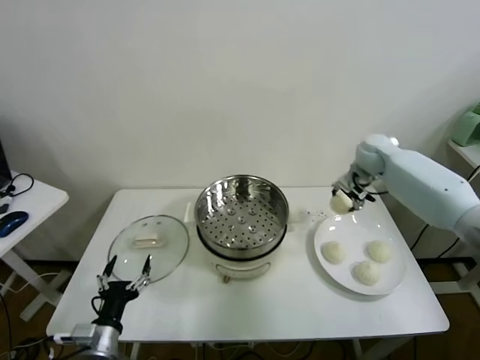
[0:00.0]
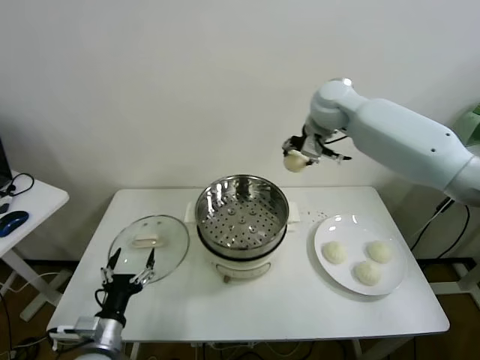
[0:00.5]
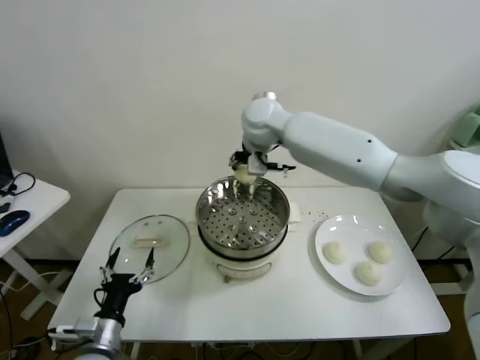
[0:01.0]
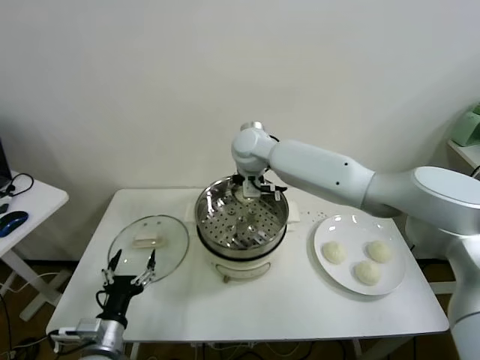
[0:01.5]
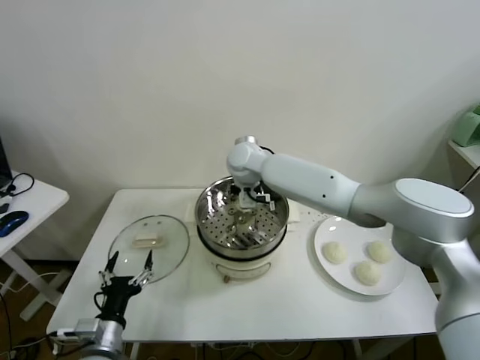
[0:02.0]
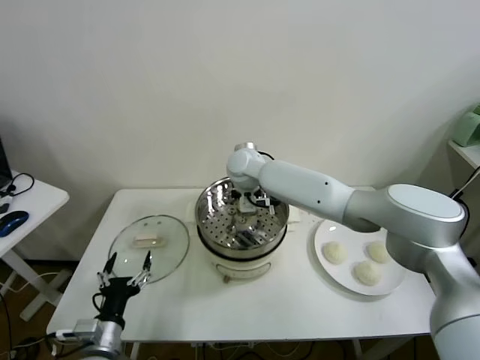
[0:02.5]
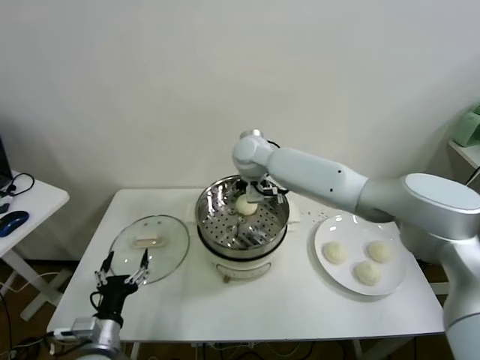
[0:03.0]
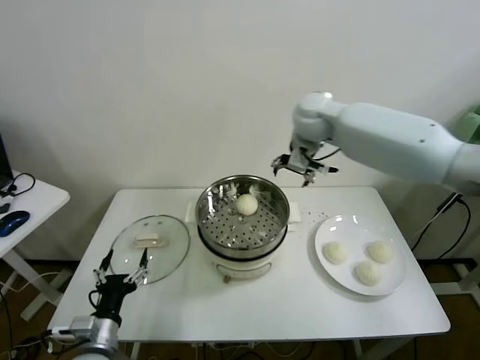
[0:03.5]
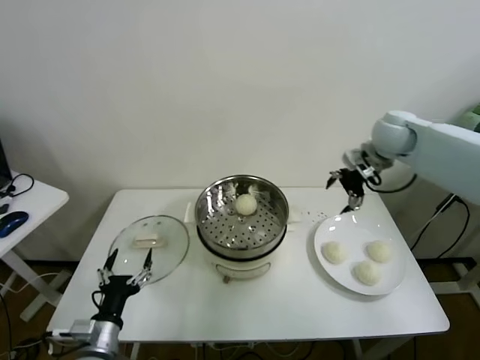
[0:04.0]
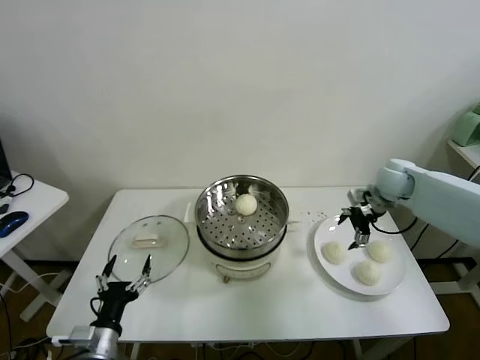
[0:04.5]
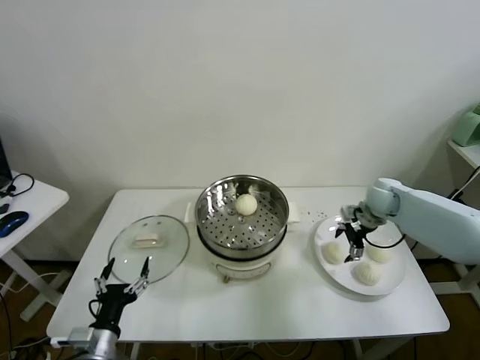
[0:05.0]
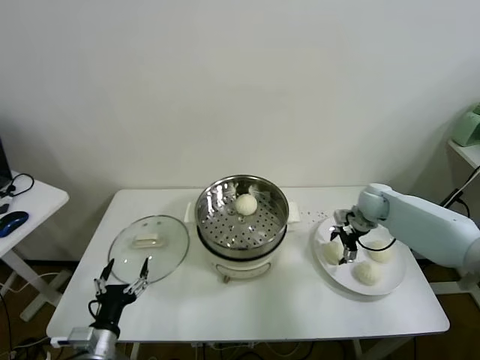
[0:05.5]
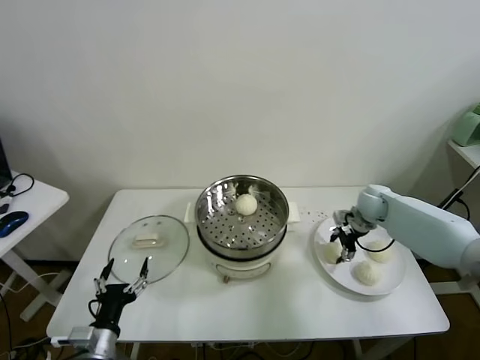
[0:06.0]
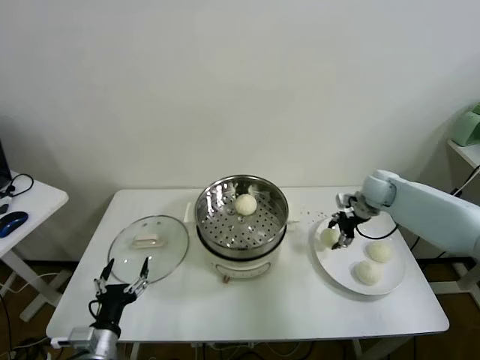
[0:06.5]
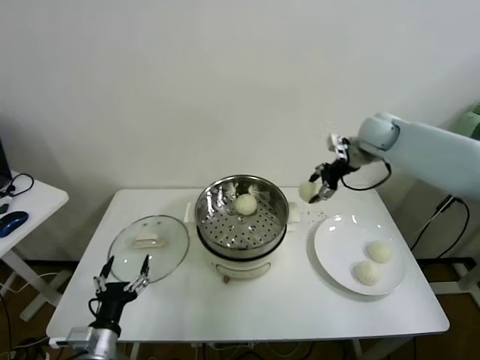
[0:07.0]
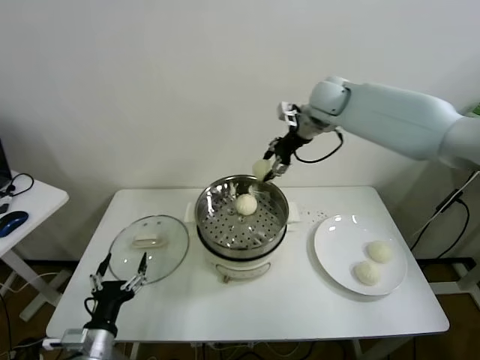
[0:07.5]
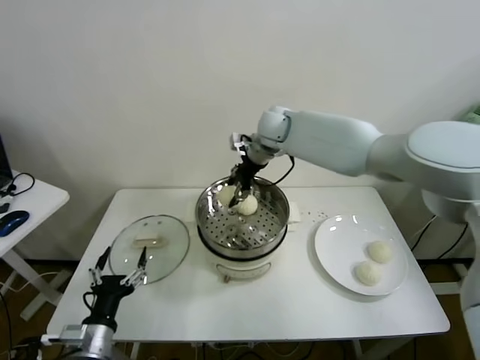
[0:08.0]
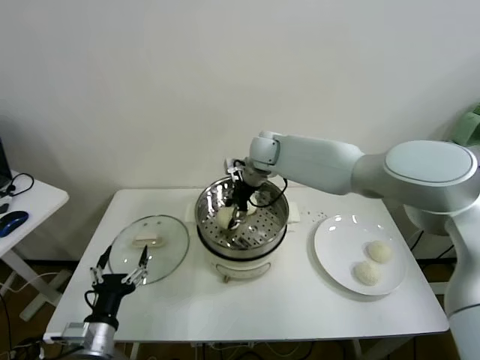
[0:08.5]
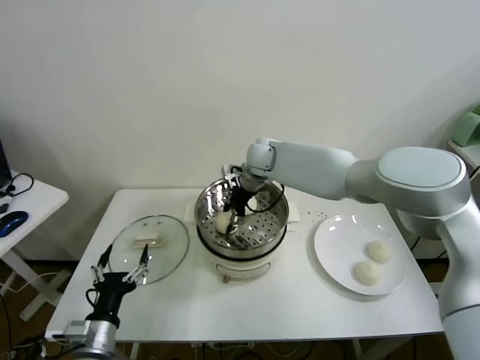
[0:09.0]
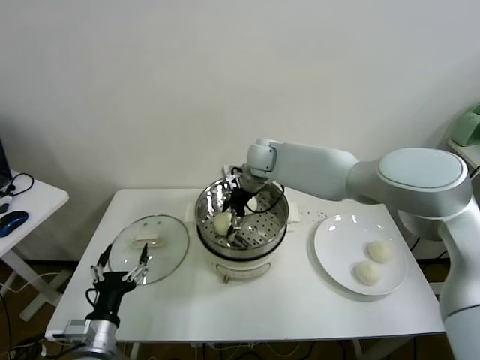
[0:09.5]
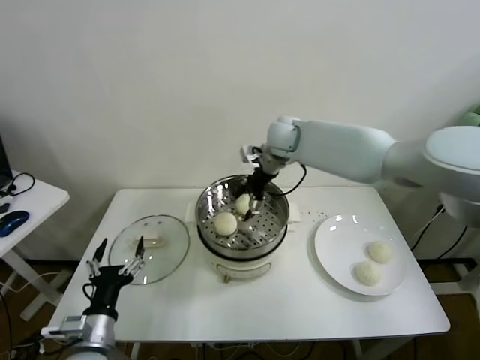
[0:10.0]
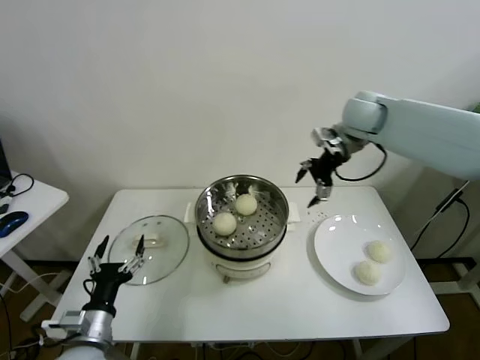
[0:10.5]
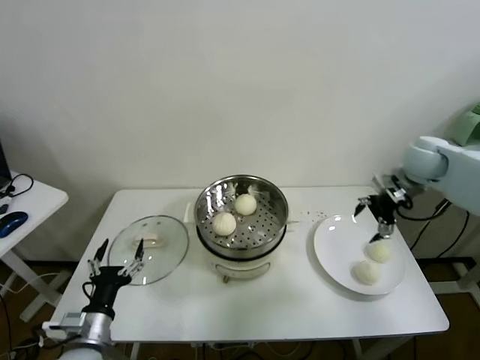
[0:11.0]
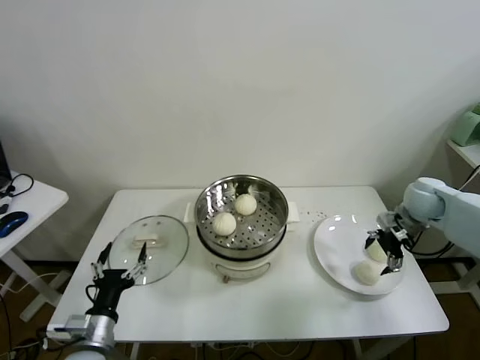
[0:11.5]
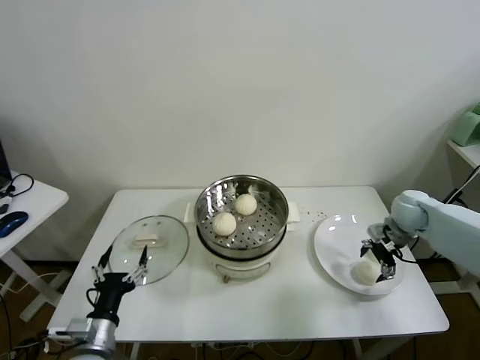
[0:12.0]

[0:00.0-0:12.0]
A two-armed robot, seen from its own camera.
Task of the whole recording: take steamed baozi put them in steamer.
Step, 0:00.0 to 0:02.5: Place the baozi on the steamer with right gripper.
Step, 0:03.0 to 0:05.5: Grasp the baozi in the plate with right gripper.
Step, 0:06.5 to 0:09.5: Place the baozi on the steamer with right gripper.
0:00.0 to 0:02.0: The right gripper shifts approximately 30 cm to the left.
0:02.0 to 0:04.0: The right gripper goes approximately 35 cm to the right, and opens.
0:04.0 to 0:06.0: The right gripper goes roughly 20 cm downward, and closes its fingers.
0:06.0 to 0:08.0: The right gripper goes roughly 35 cm to the left and upward.
0:08.0 to 0:10.0: The right gripper reaches approximately 5 cm downward, then returns, and opens.
0:10.0 to 0:12.0: The right gripper shifts roughly 35 cm to the right and downward.

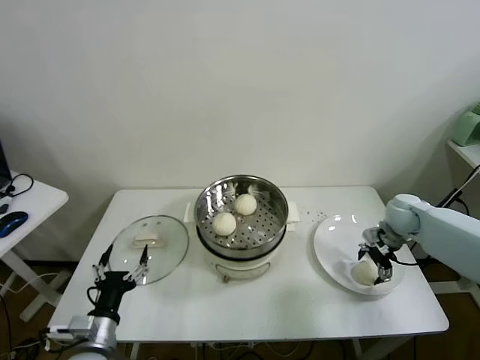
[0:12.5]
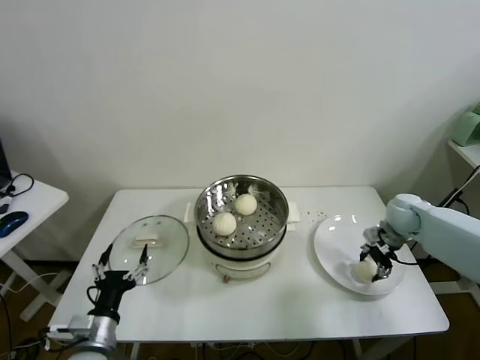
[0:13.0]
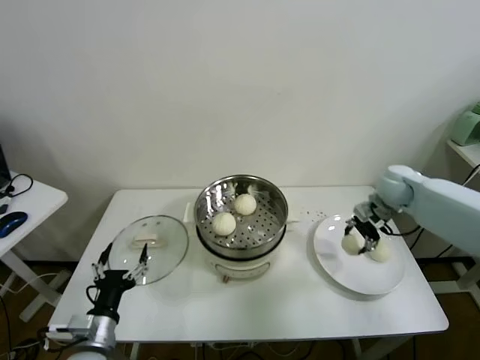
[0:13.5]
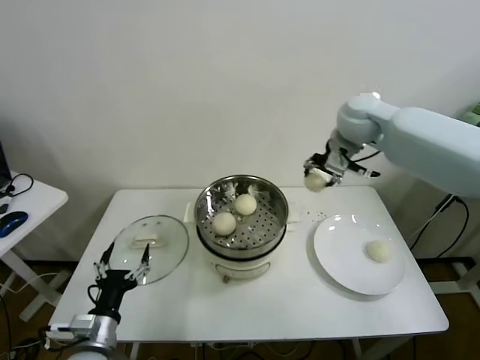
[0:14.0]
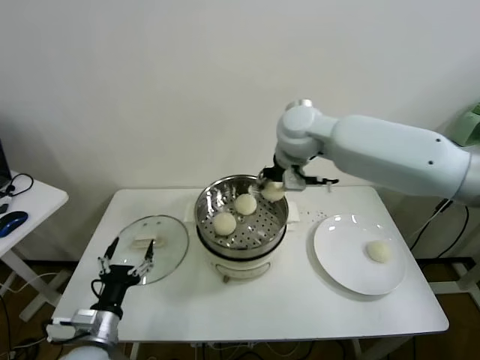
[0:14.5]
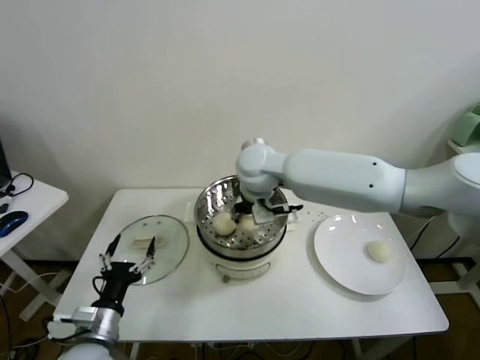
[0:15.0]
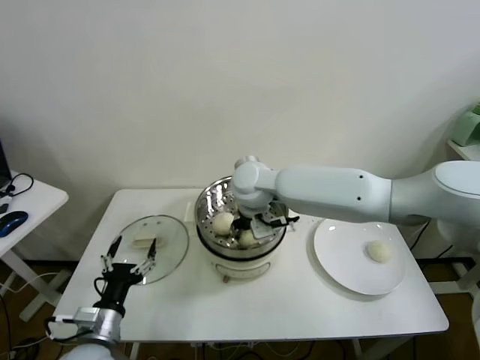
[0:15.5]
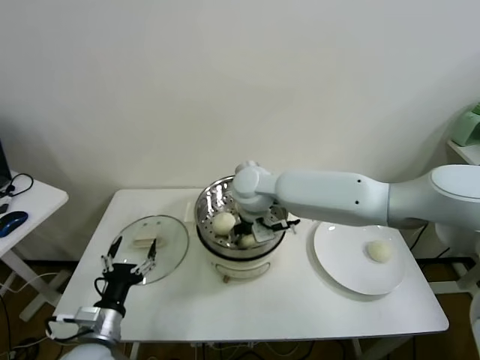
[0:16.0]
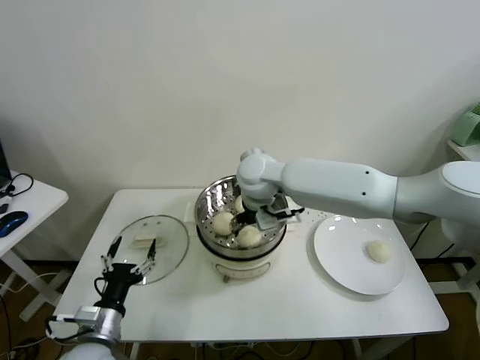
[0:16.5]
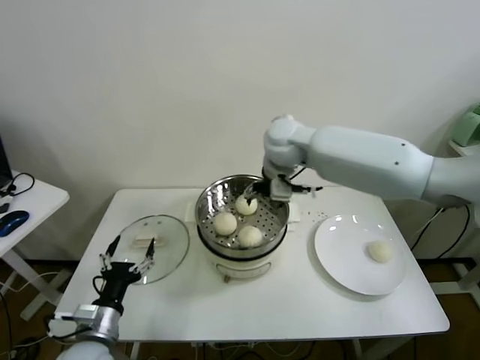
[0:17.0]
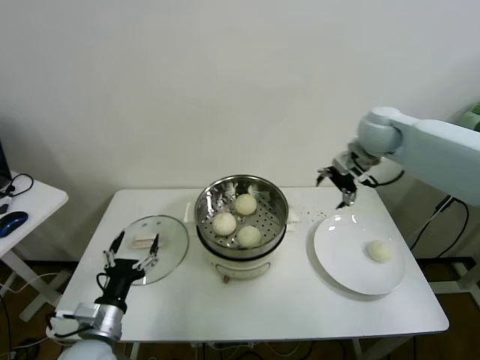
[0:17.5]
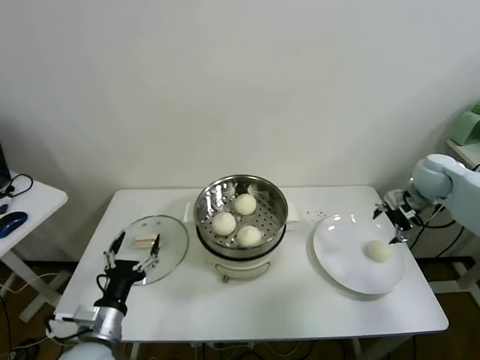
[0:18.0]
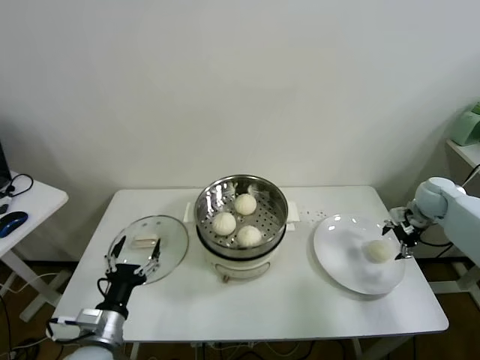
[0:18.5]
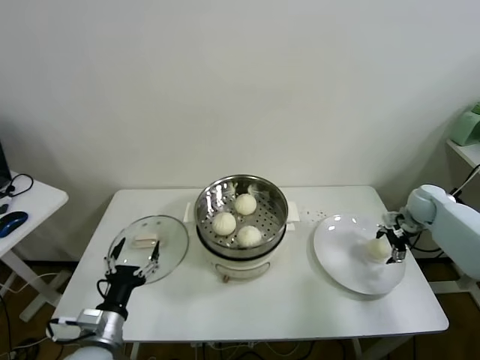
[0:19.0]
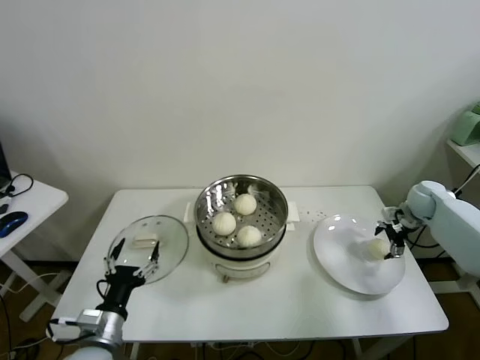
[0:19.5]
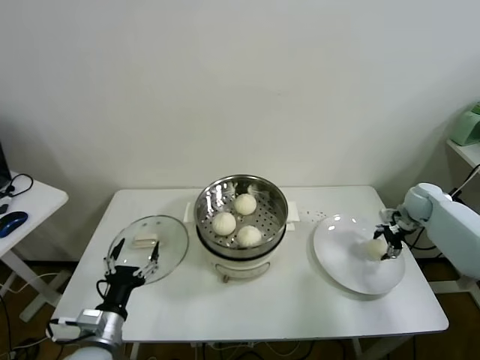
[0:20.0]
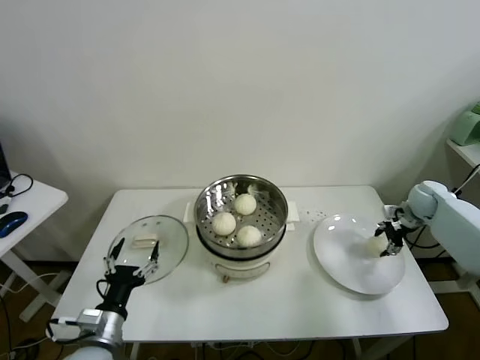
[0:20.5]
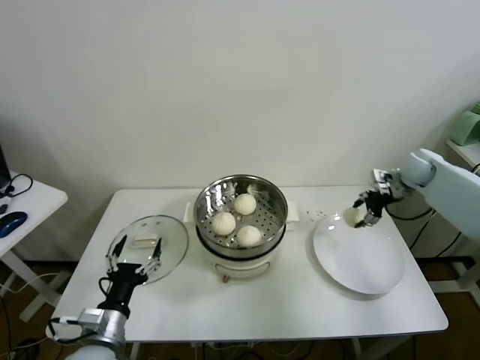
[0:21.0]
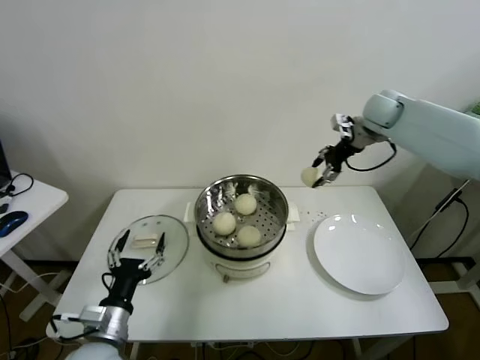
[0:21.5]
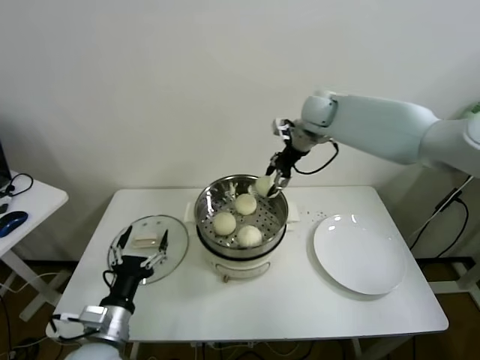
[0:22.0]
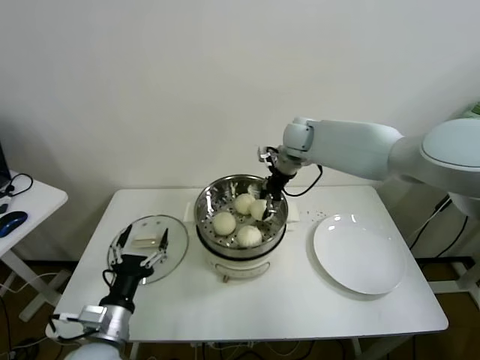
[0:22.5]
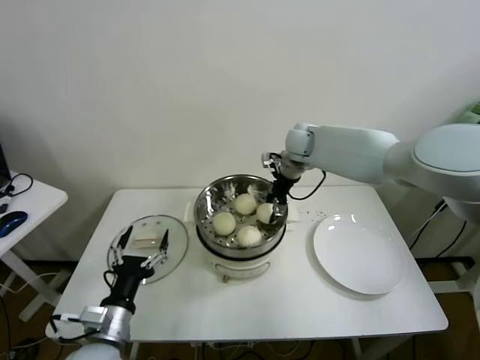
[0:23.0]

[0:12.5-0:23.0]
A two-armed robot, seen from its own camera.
Task of the whole recording: take steamed baozi put them in steamer.
Step, 0:13.0 to 0:16.0: Place the baozi on the steamer with right gripper.
Step, 0:16.5 to 0:20.0: Grasp the baozi in the plate with right gripper.
0:12.5 to 0:14.5: The right gripper moves to the left and upward, roughly 40 cm, and closes.
0:14.5 to 0:16.5: The right gripper goes about 10 cm downward and to the left, and opens up.
0:16.5 to 0:19.0: The right gripper moves to the right, some 50 cm.
0:19.0 to 0:21.0: The right gripper shifts roughly 10 cm upward, and closes up.
0:21.0 to 0:23.0: The right gripper travels to the left by approximately 30 cm.

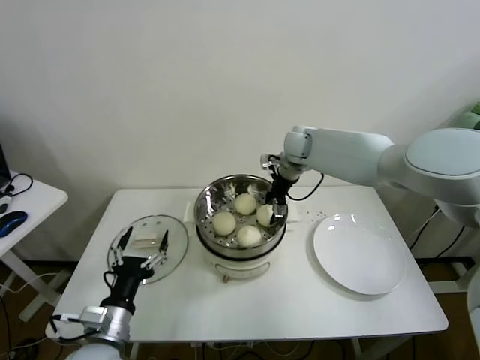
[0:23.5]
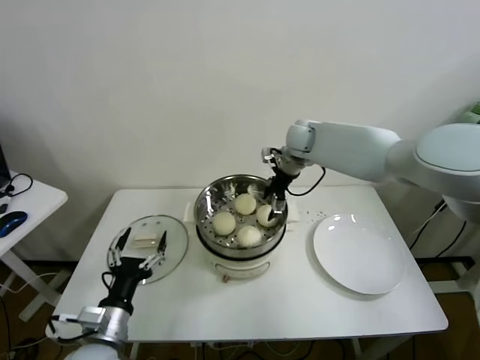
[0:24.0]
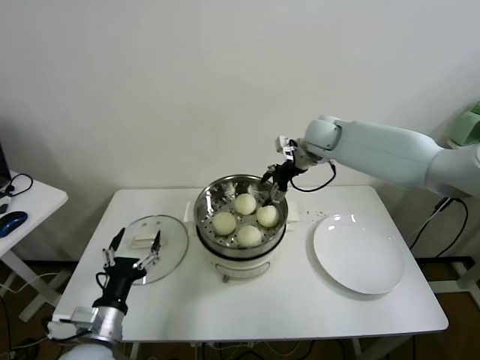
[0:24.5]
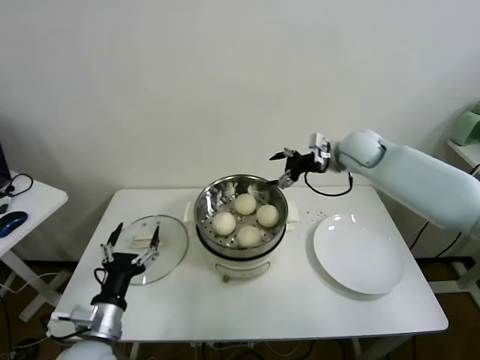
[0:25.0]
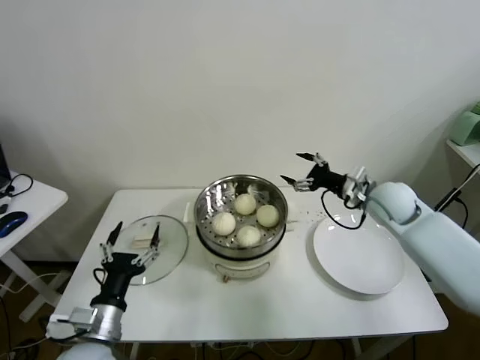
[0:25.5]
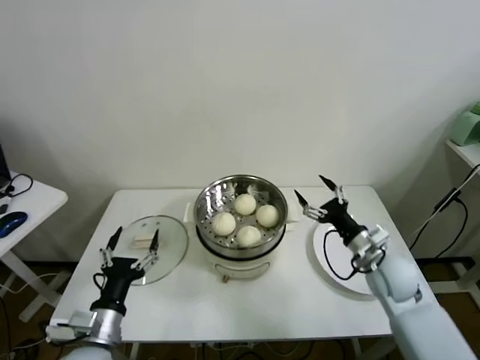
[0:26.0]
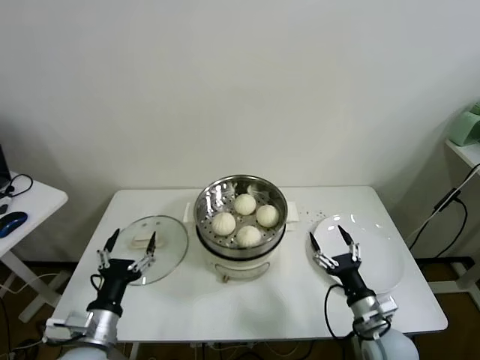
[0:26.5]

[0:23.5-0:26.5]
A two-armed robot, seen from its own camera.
Task of the whole recording: take steamed baozi put them in steamer.
0:23.5 to 0:25.0: The right gripper travels to the right and backward by about 15 cm, and opens.
0:25.0 to 0:26.5: The right gripper moves backward and downward, about 40 cm.
